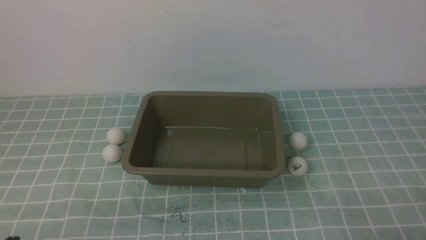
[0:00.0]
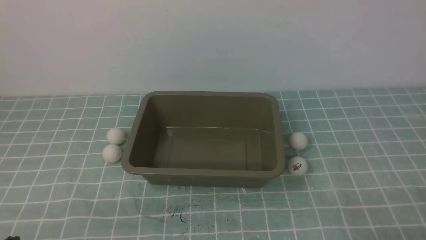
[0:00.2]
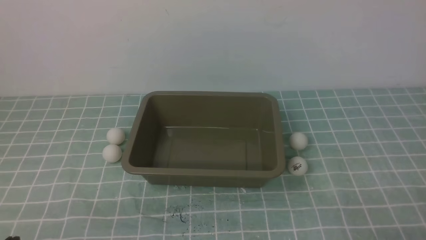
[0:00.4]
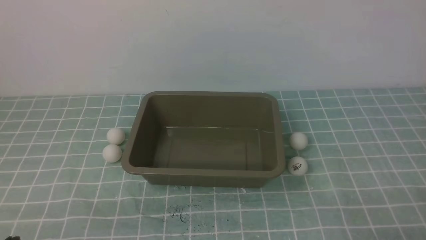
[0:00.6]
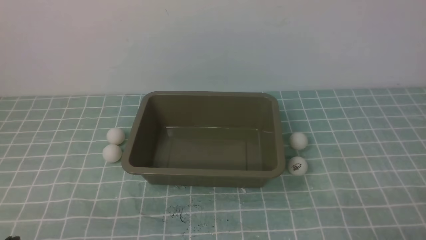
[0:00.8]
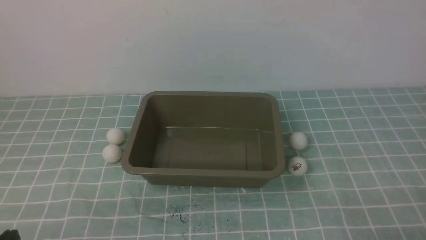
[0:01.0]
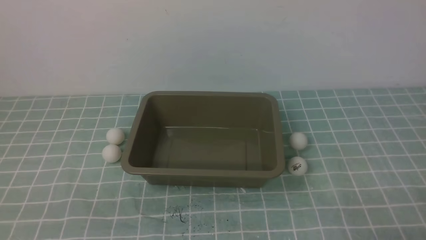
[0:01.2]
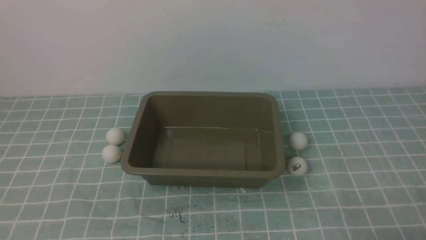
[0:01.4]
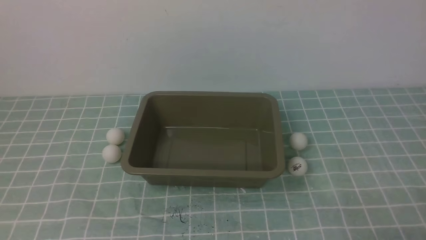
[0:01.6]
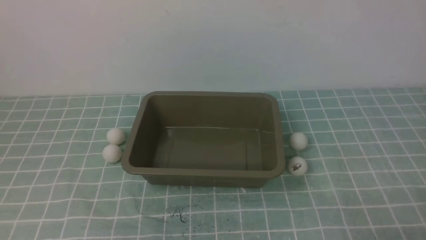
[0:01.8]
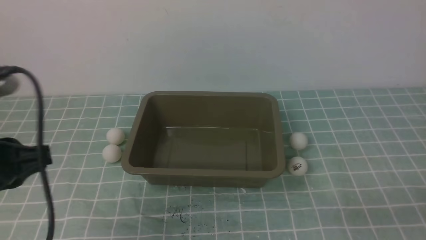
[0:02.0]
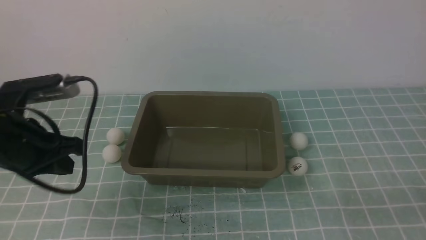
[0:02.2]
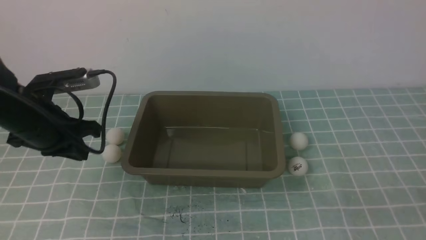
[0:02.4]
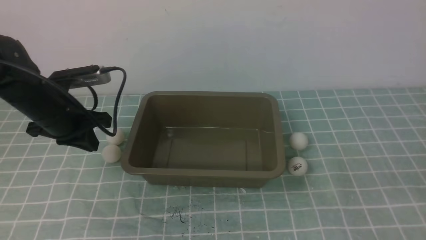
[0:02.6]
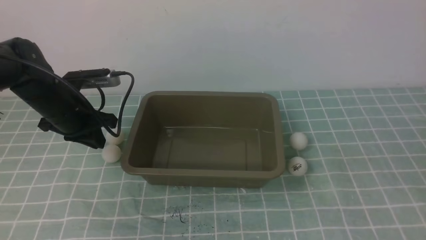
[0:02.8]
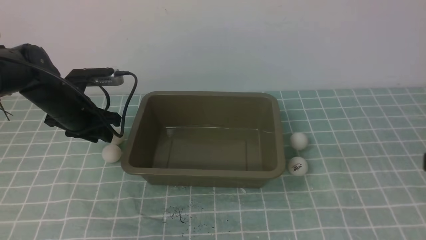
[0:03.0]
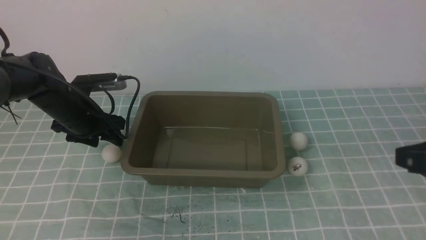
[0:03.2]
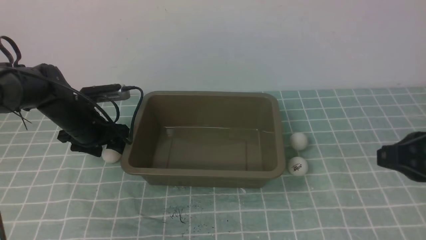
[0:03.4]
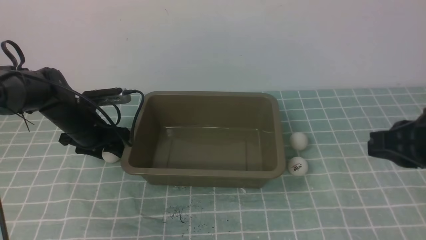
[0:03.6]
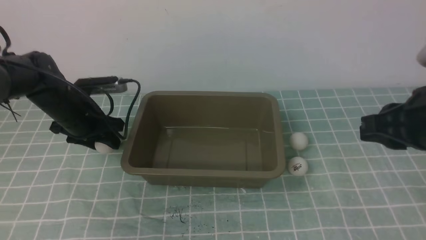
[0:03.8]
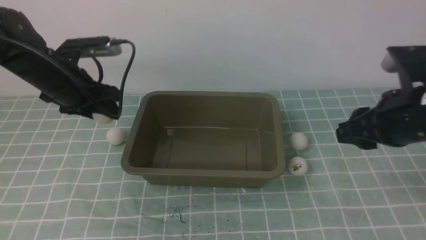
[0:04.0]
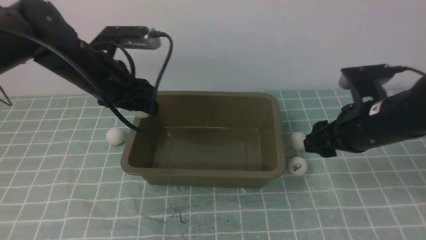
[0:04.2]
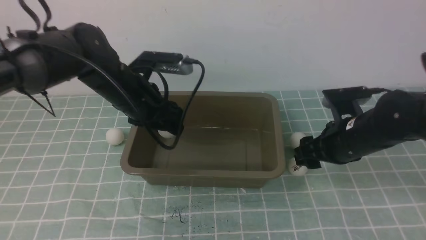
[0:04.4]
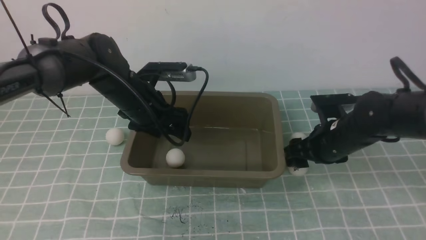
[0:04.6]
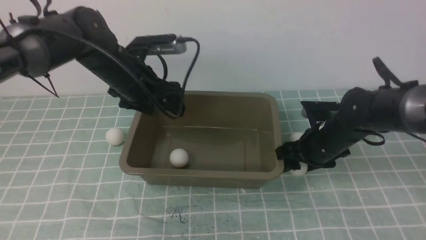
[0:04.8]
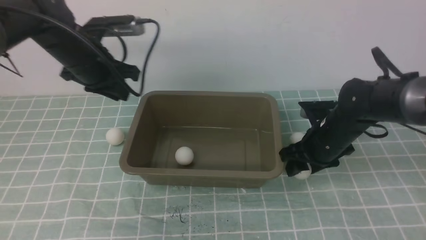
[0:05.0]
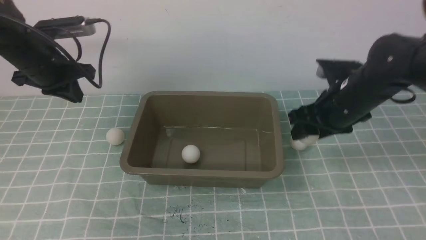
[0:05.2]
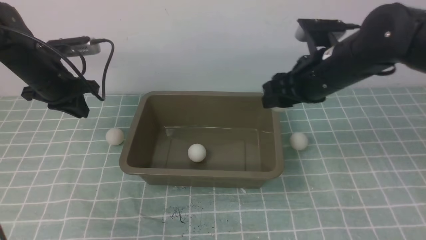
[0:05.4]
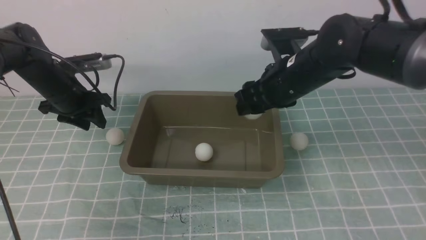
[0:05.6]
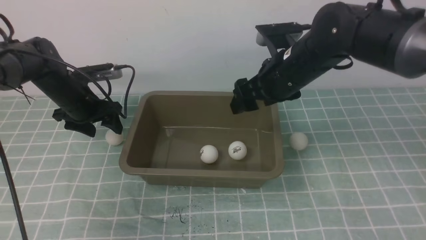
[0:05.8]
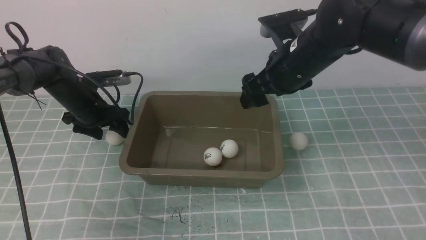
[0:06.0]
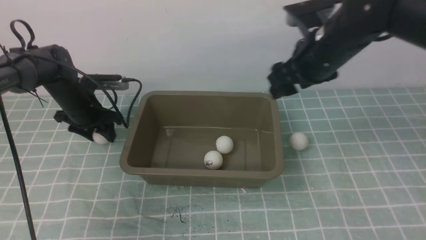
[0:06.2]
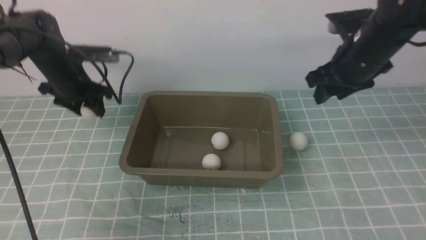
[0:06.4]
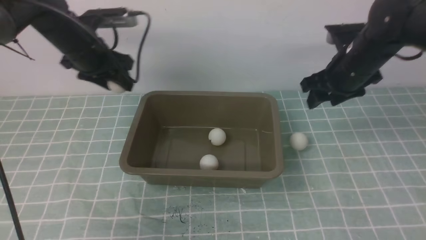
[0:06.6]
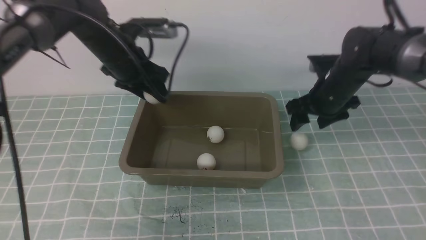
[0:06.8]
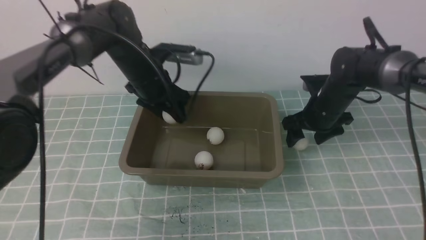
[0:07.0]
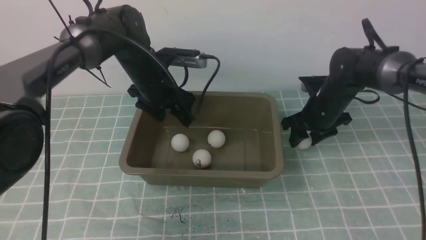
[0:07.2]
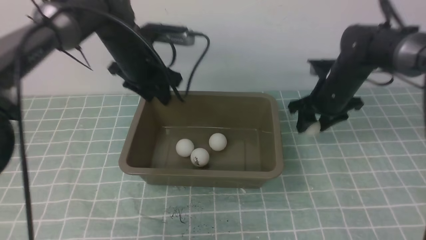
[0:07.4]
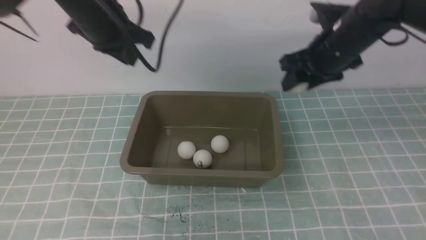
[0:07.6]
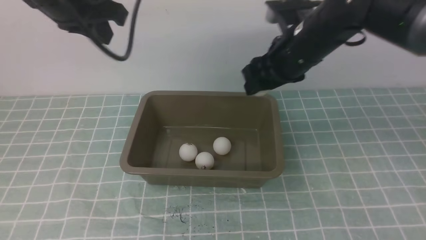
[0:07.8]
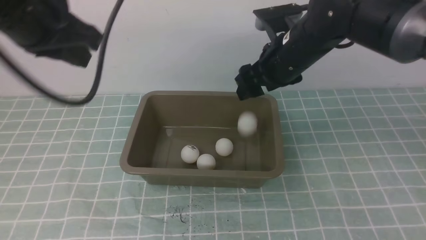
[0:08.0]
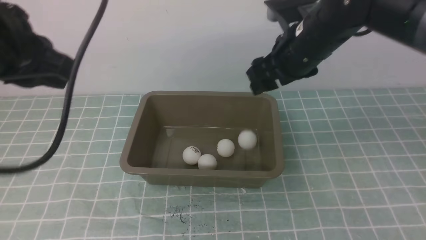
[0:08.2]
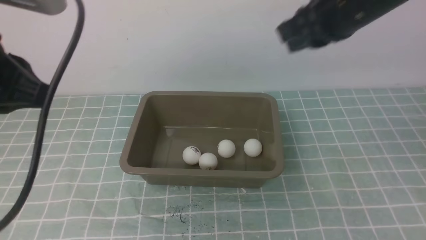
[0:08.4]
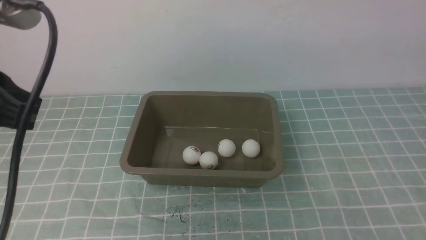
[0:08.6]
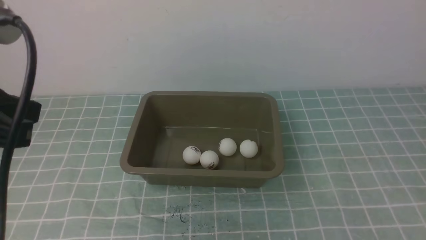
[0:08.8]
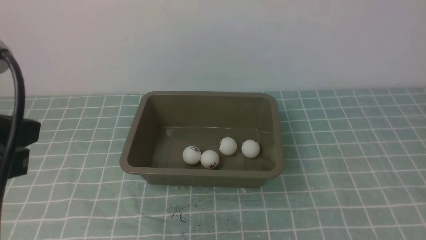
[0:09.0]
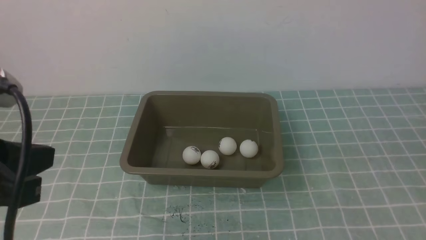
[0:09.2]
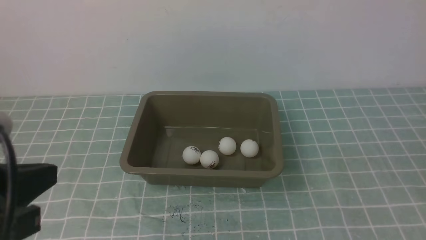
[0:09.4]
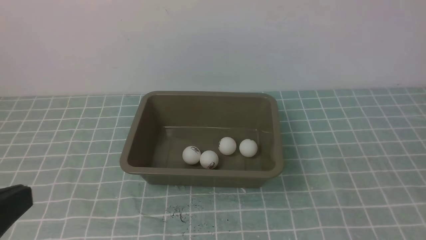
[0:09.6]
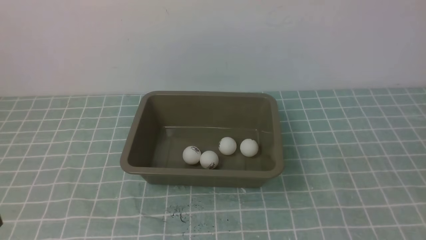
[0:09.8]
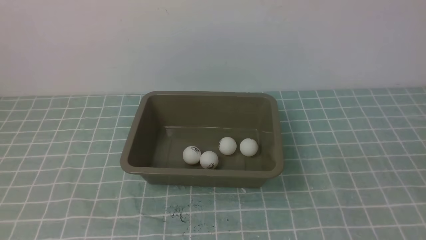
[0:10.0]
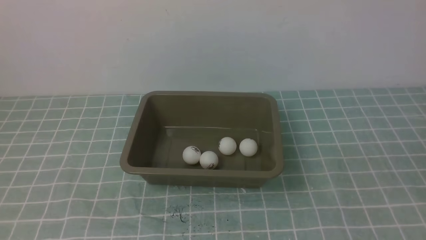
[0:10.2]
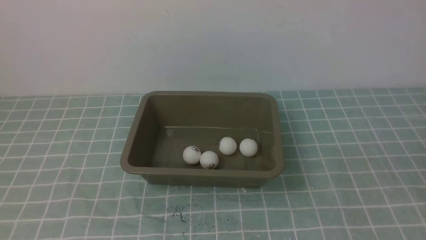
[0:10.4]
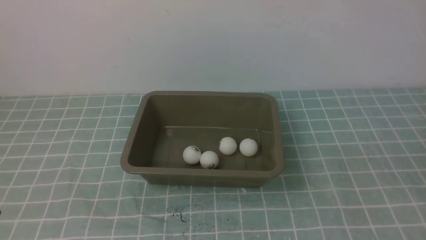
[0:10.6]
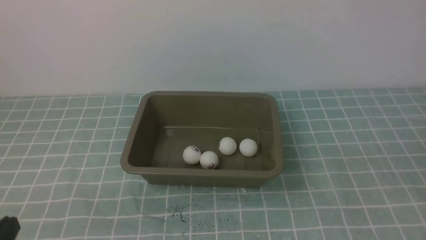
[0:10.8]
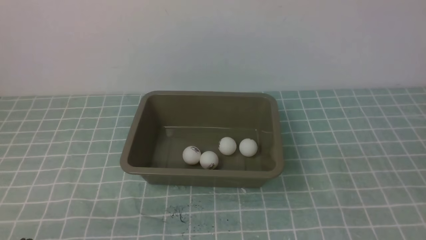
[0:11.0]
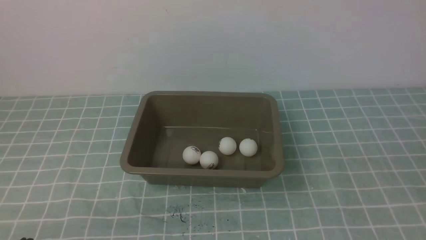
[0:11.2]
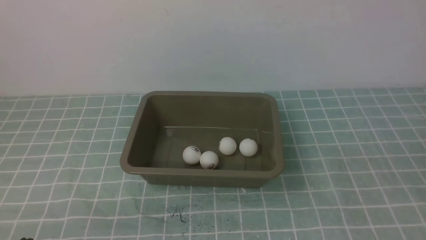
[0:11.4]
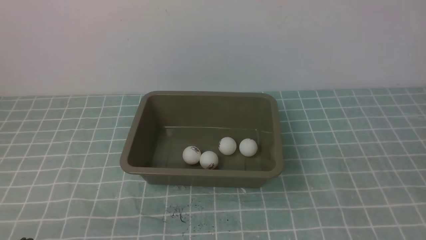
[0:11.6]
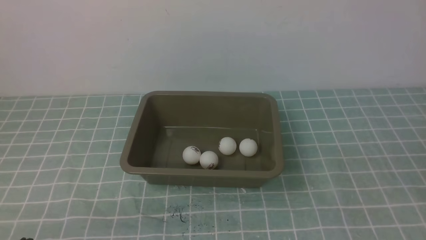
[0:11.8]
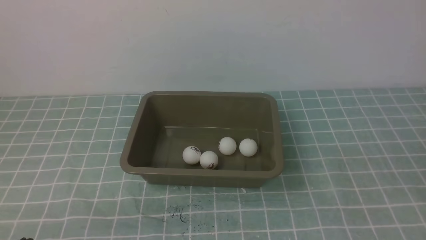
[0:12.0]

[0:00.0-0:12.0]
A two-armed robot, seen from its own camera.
Step, 0:00.0 to 0:03.4: use the left arm to clamp the table tennis ball closest to it.
Step, 0:03.8 to 0:04.6: use the left arm to put the table tennis ball into the box.
Step, 0:04.8 to 0:05.2: use the right arm to clamp the table tennis ball closest to it.
Step, 0:05.4 to 0:06.0: use the right arm to put the table tennis ball into the box.
Step, 0:06.2 to 0:06.4: use the left arm to clamp the table tennis ball closest to it.
Step, 0:06.6 to 0:07.0: use the left arm to put the table tennis ball into the box.
Step, 0:07.4 to 0:08.4: use the right arm to put the table tennis ball into the box.
0:01.6 to 0:03.0: The left gripper heads forward, covering roughly 35 cm, and opens, while the right gripper goes some 15 cm upward and forward.
0:03.0 to 0:04.4: The left gripper goes approximately 10 cm to the right, while the right gripper goes about 25 cm forward and downward, and opens its fingers.
0:04.4 to 0:06.0: The right gripper travels upward, to the left and forward by some 15 cm. Meanwhile the left gripper moves to the left, downward and forward, approximately 15 cm, and closes, then opens again.
0:06.0 to 0:07.6: The left gripper travels upward and to the right by about 25 cm, and closes its fingers. Meanwhile the right gripper reaches about 15 cm downward, then returns.
0:07.6 to 0:09.0: Both grippers move backward, roughly 30 cm. The right gripper closes.
0:09.0 to 0:10.4: The left gripper heads backward and downward, covering some 15 cm.

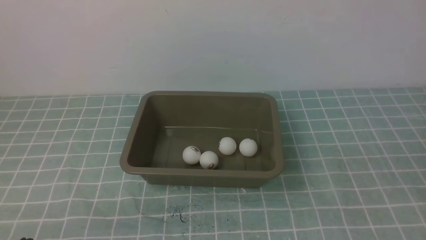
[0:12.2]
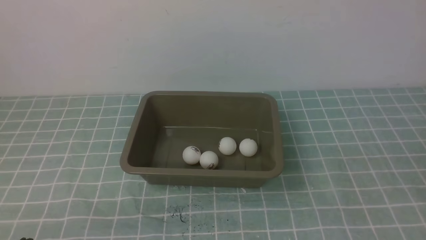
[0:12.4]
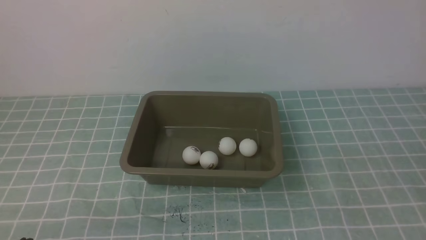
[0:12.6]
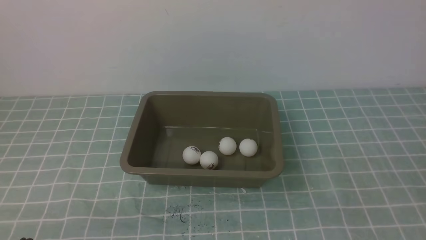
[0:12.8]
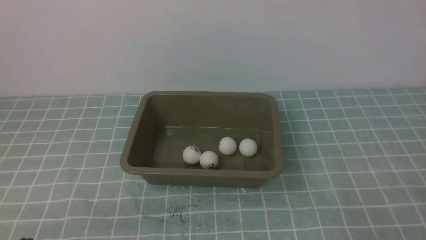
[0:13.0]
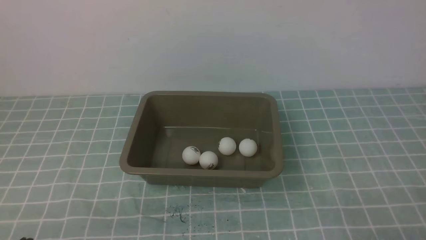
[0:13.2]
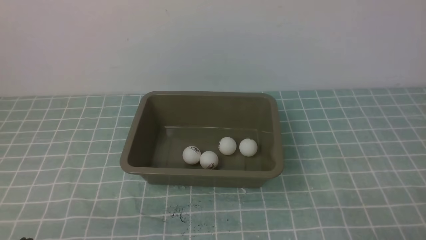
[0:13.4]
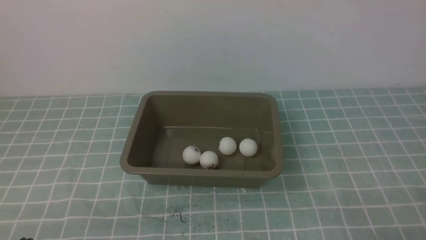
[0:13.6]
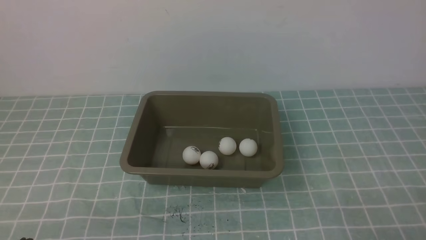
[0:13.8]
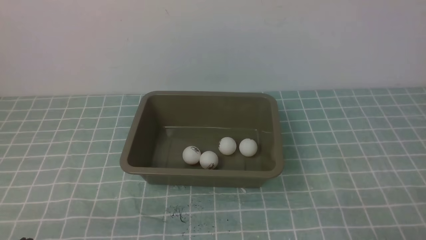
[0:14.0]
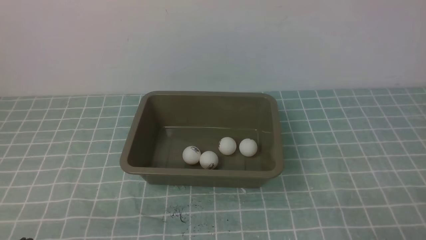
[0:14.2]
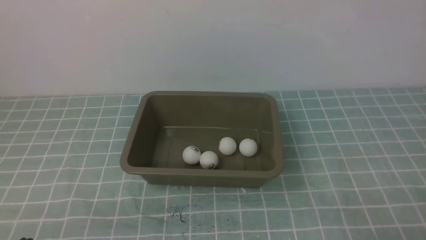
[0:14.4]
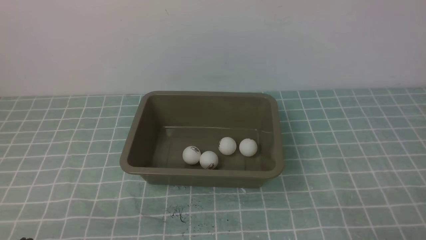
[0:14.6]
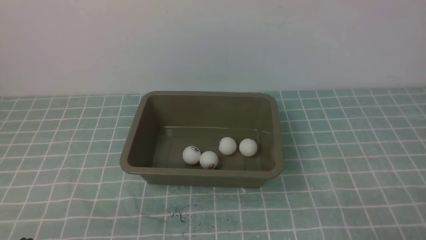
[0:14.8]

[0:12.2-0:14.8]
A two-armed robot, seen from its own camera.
0:13.4 to 0:14.8: Neither gripper changes place.
